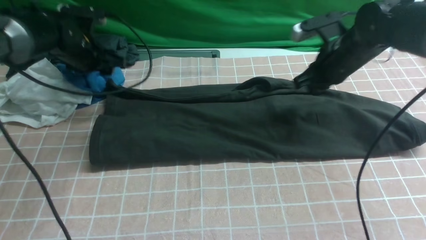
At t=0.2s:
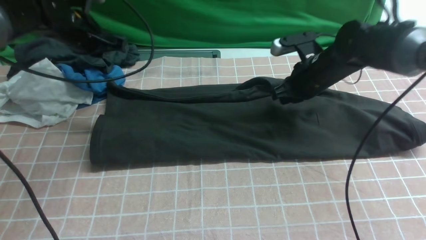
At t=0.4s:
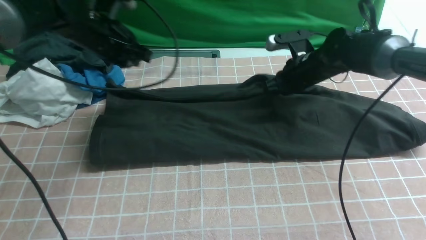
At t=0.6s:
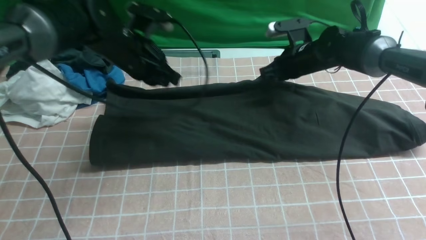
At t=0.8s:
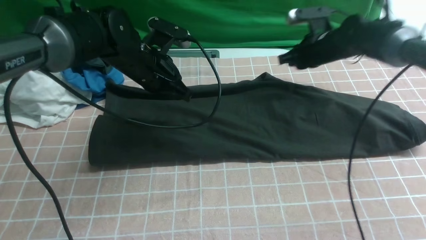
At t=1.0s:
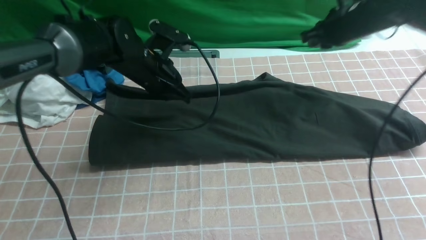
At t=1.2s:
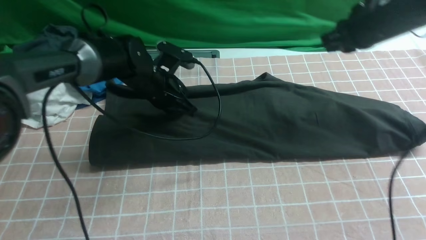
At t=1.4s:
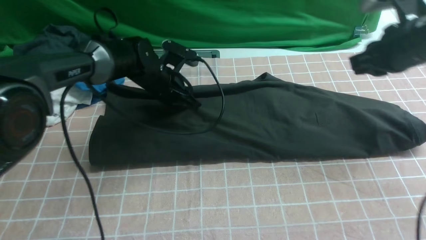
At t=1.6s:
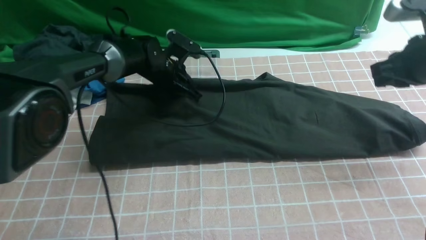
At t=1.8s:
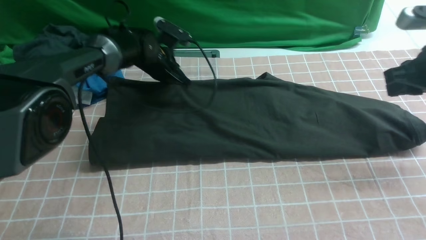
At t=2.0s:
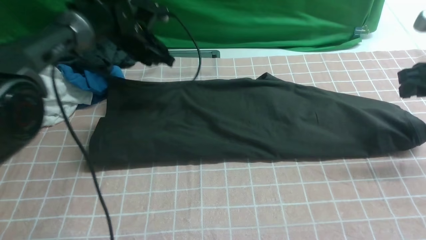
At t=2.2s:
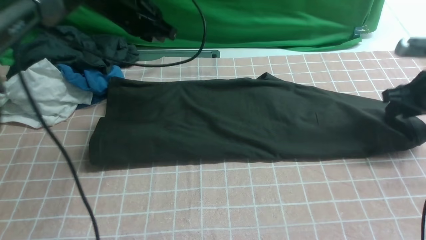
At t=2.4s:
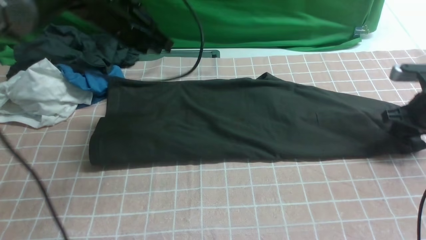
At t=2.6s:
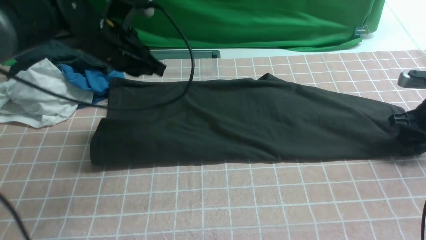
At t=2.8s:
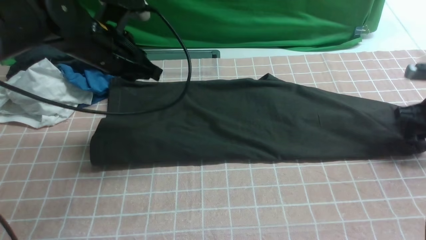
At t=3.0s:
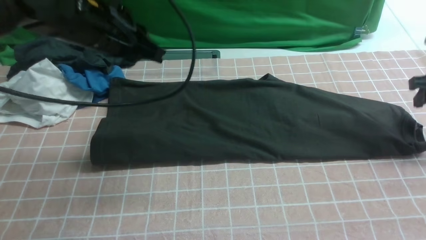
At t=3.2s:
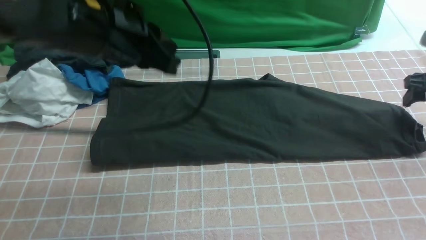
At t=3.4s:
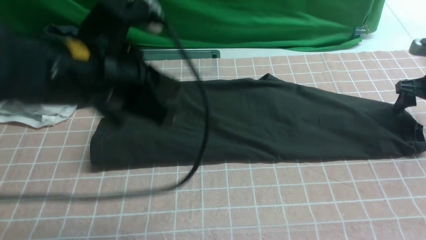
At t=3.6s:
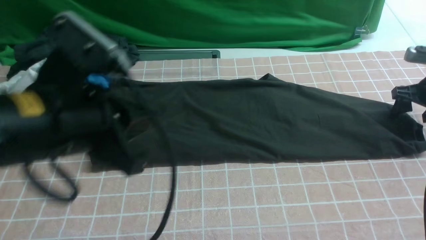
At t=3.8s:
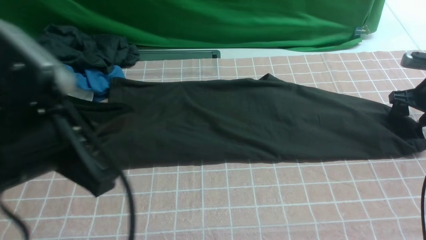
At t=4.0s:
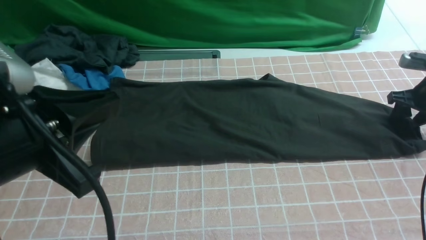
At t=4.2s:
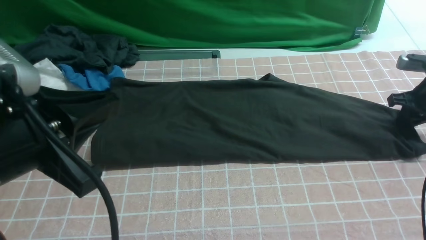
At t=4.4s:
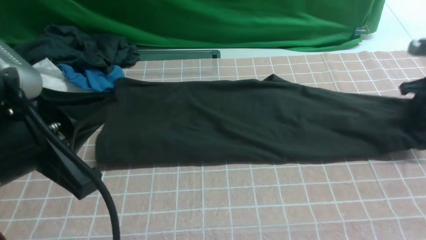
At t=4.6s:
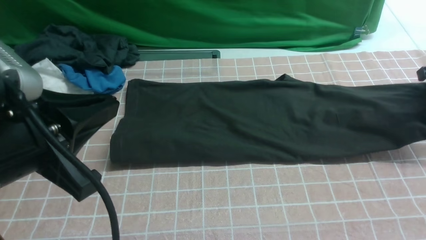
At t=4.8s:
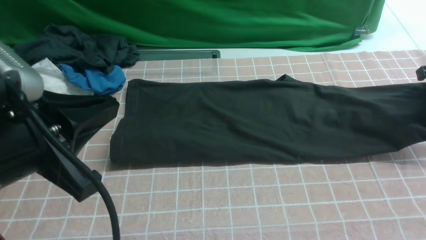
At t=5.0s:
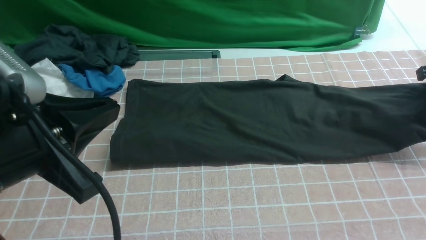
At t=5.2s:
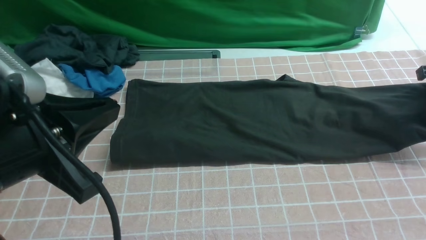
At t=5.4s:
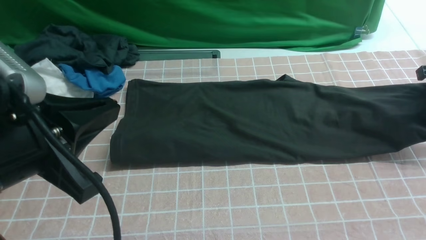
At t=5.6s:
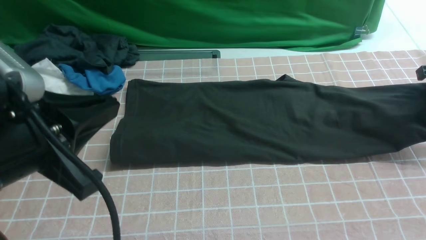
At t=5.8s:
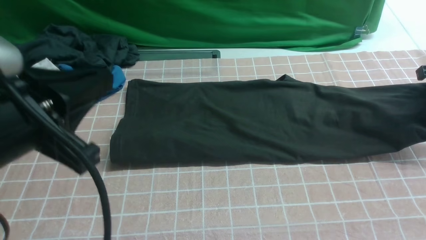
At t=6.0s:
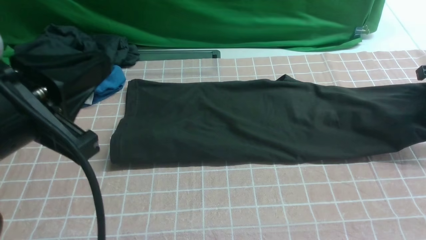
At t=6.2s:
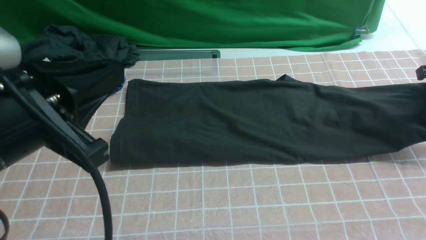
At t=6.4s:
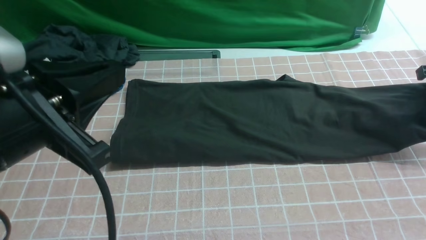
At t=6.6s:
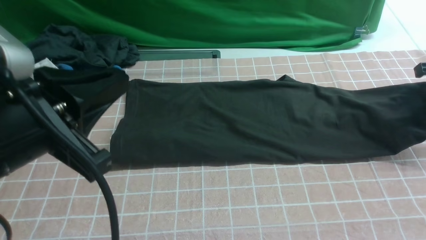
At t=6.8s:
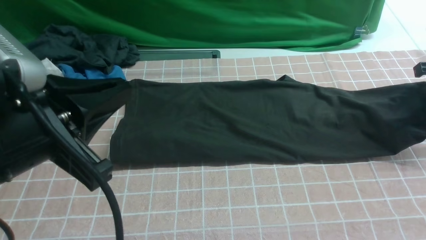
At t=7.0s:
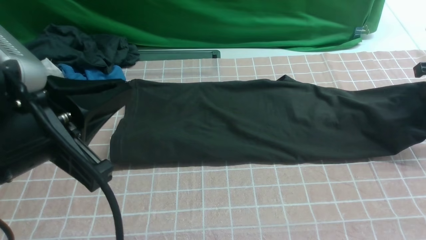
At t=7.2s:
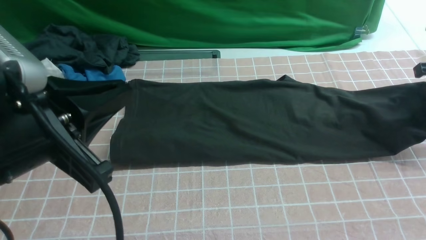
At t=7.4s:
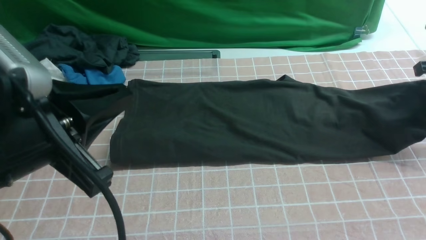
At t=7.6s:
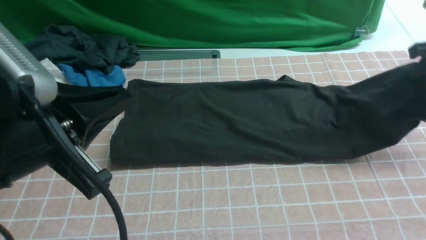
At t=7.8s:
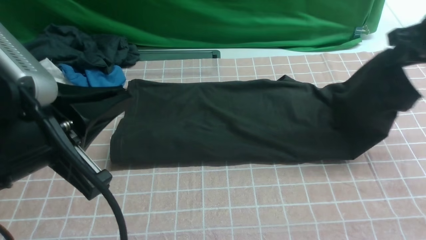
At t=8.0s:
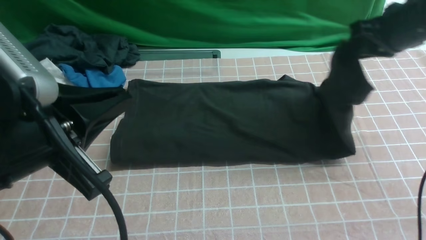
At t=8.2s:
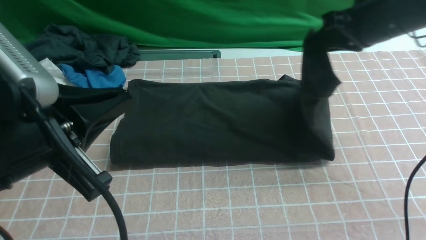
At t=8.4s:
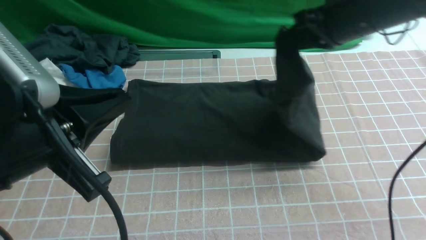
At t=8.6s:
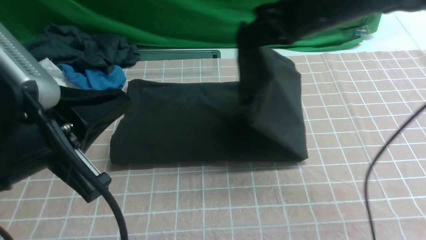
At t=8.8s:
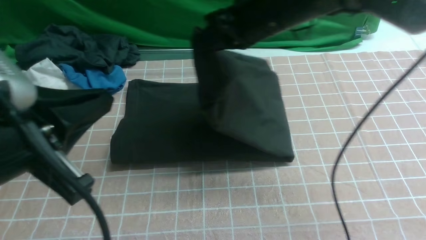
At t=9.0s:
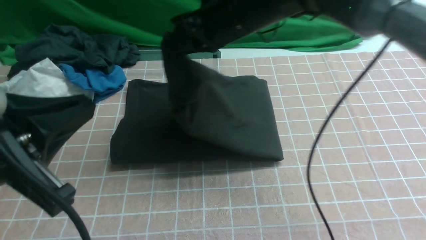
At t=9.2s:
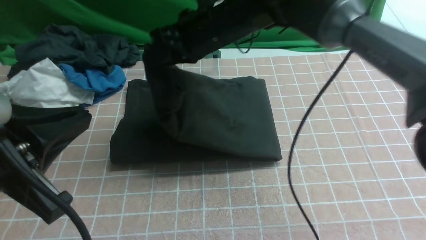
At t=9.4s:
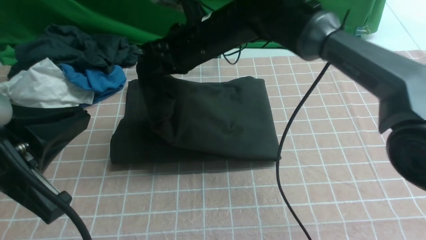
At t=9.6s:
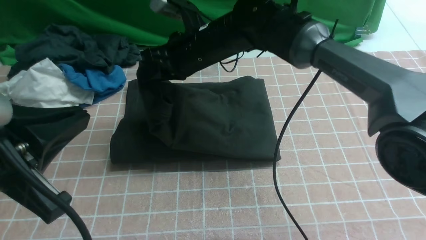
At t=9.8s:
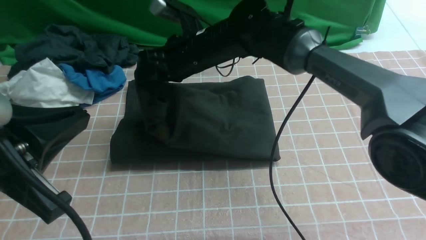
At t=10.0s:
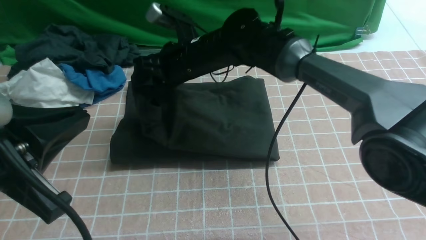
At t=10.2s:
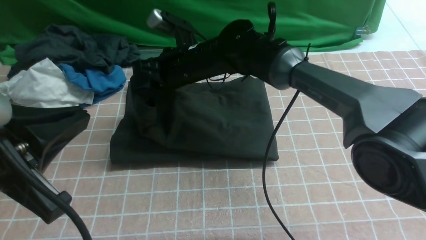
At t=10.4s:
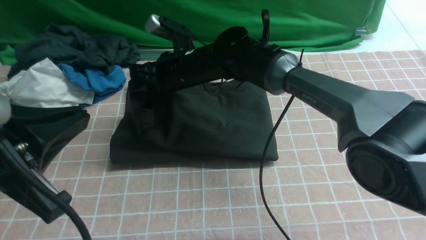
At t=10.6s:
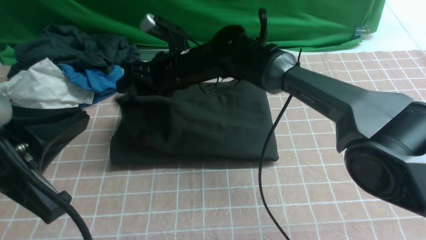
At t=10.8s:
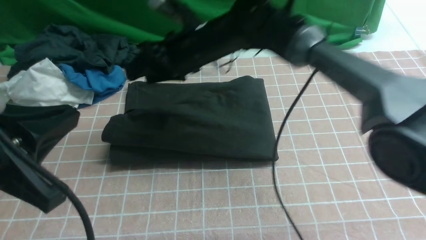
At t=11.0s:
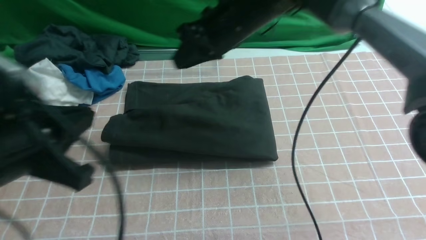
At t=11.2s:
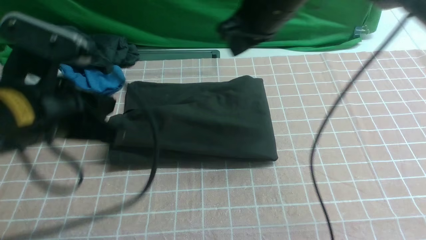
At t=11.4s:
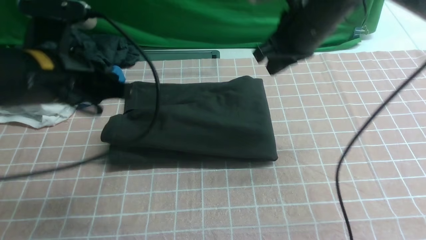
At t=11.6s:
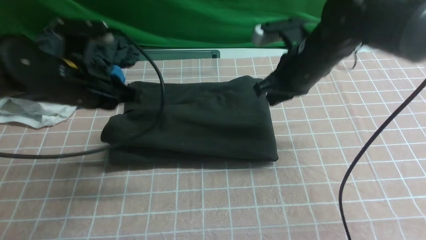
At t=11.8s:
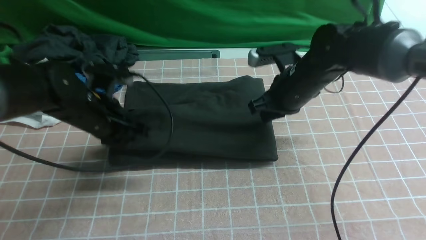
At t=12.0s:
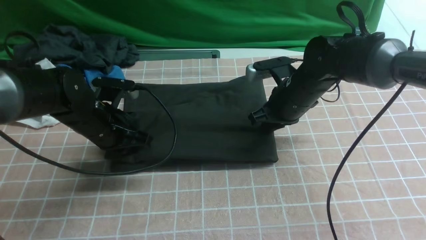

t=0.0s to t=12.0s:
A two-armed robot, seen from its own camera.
Step, t=0.2s to t=4.4s: use the right arm to clamp the right edge of the fabric.
Step, t=4.6s to t=10.6s: use the right arm to drag the right edge of the fabric to the left and folds it over the left edge.
t=0.0s to t=1.6s: The right gripper shifts roughly 15 cm to the right, backward and upward, while the left gripper is displaced to the right and downward by approximately 15 cm, and closes up.
t=1.6s to t=3.0s: The right gripper travels to the right and downward by roughly 10 cm, and opens up; the left gripper heads upward and backward, covering some 25 cm.
t=3.0s to t=4.4s: The left gripper is displaced backward by about 20 cm. Meanwhile the right gripper closes.
t=4.4s to t=6.0s: The grippers stay close to where they were, moving slightly.
t=6.0s to t=7.6s: The right gripper travels to the left by roughly 5 cm.
t=7.6s to t=9.0s: The right gripper is displaced to the left by some 35 cm.
t=9.0s to t=10.4s: The right gripper travels downward and to the left by about 15 cm.
t=10.4s to t=12.0s: The left gripper heads forward and downward, covering approximately 30 cm; the right gripper goes about 20 cm to the right.

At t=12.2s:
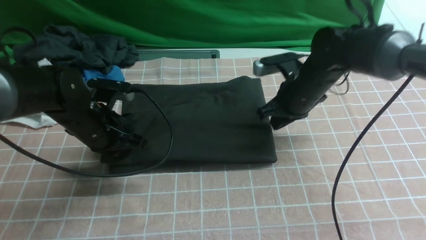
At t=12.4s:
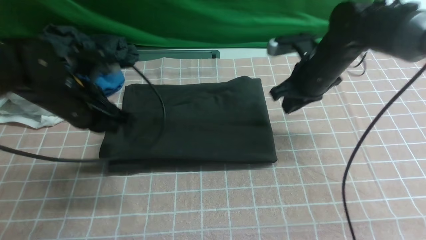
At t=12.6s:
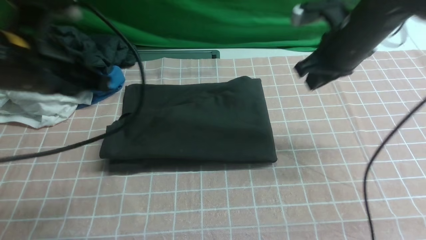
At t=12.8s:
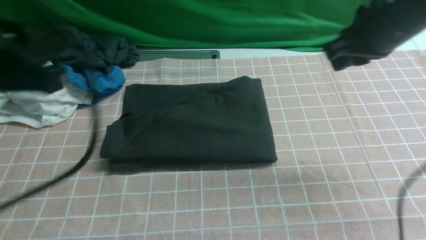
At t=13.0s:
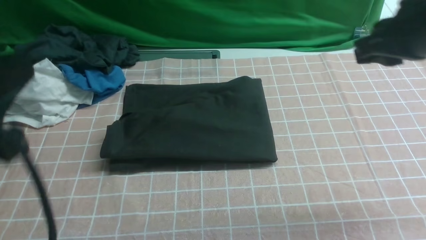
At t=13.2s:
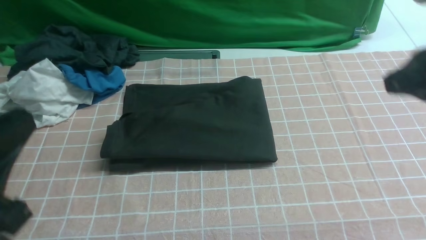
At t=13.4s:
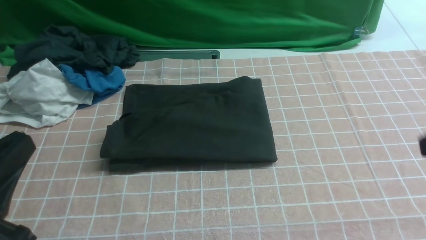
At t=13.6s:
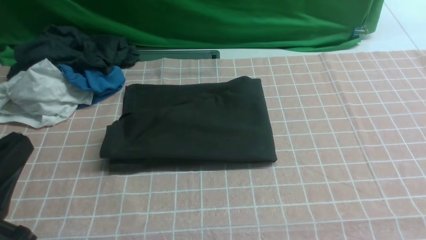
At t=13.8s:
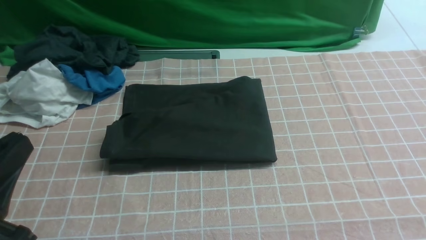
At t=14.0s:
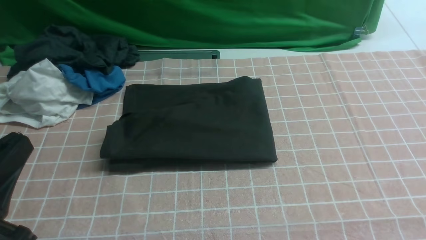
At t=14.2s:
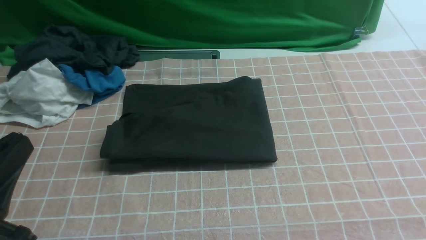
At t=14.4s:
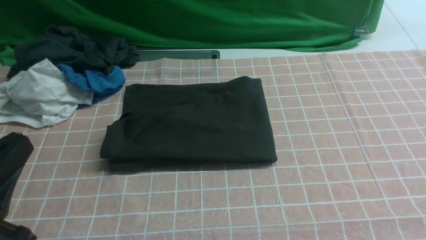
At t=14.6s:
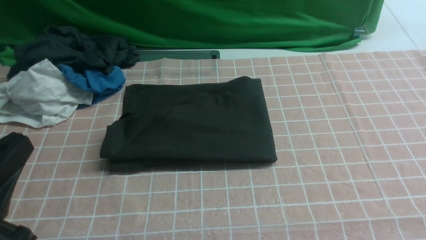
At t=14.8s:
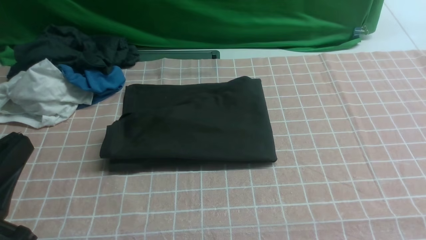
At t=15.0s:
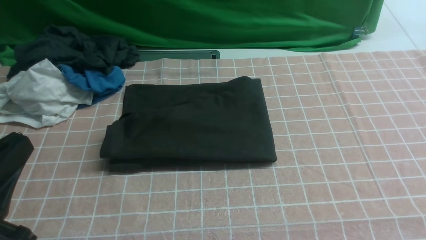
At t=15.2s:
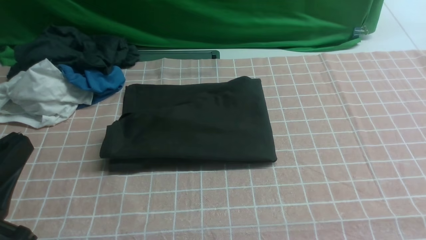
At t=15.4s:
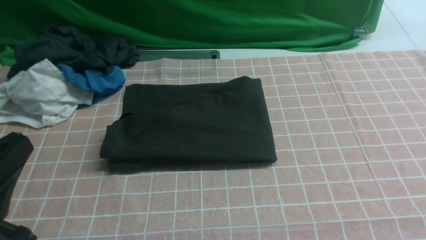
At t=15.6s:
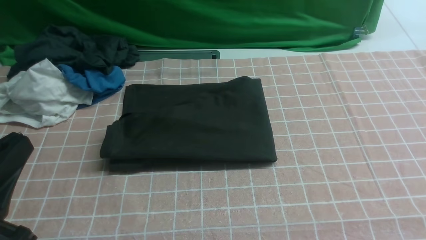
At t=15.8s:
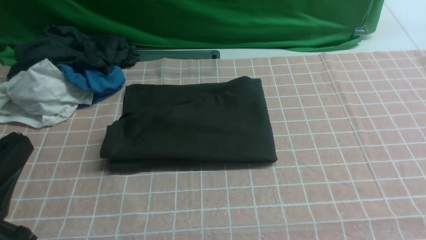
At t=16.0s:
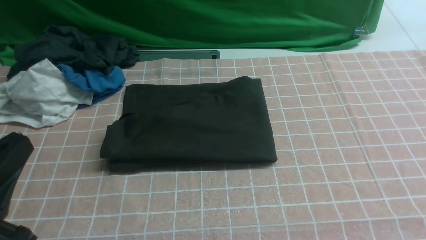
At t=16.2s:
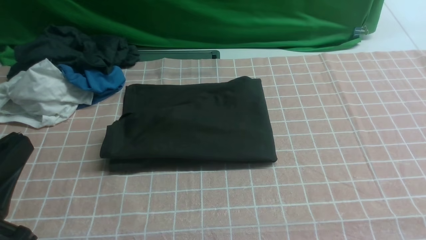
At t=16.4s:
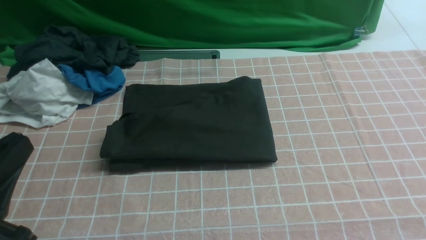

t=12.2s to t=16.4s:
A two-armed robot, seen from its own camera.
t=12.2s to t=13.6s: The right gripper is displaced backward, to the right and upward by roughly 35 cm; the left gripper heads backward, covering some 25 cm.
